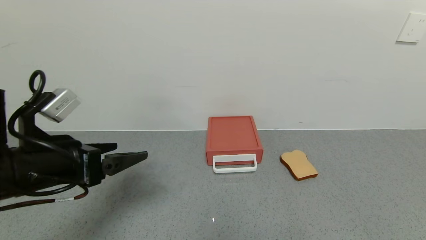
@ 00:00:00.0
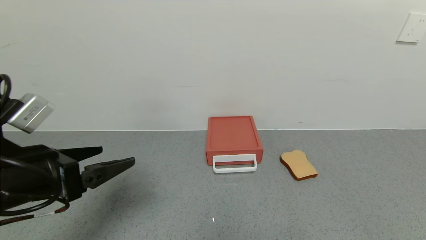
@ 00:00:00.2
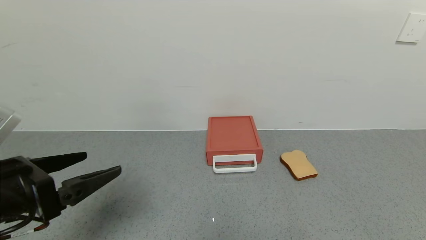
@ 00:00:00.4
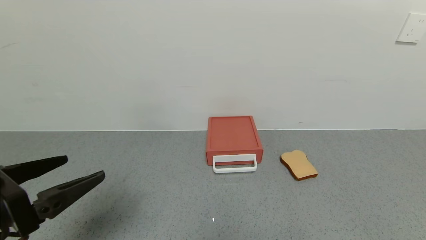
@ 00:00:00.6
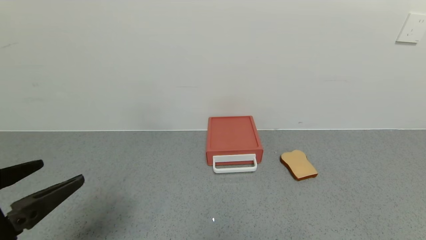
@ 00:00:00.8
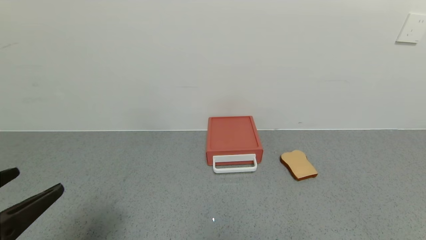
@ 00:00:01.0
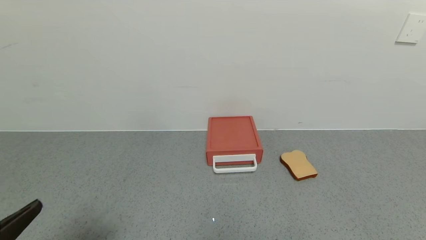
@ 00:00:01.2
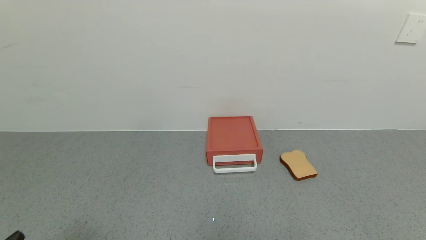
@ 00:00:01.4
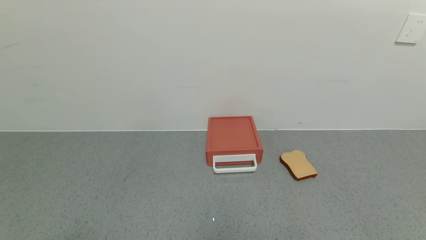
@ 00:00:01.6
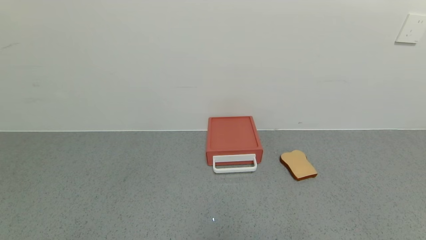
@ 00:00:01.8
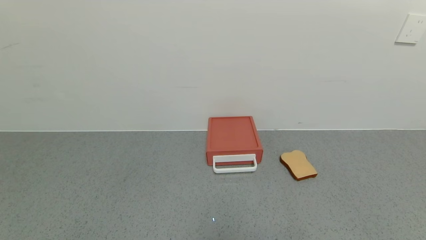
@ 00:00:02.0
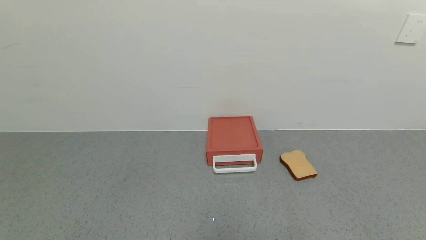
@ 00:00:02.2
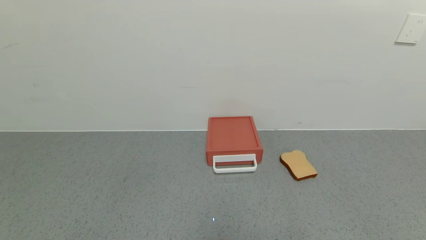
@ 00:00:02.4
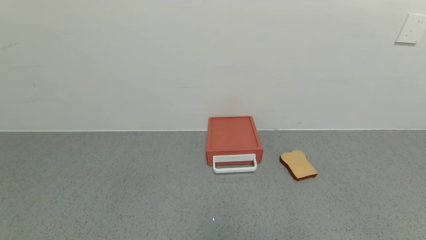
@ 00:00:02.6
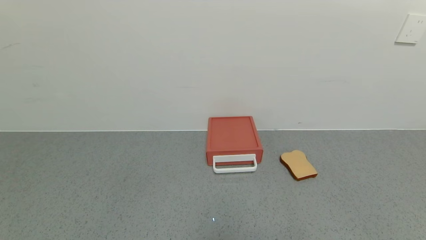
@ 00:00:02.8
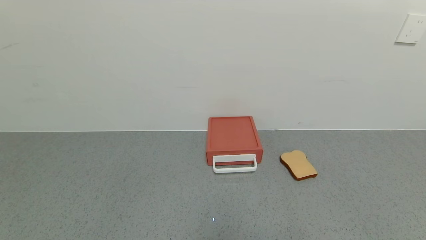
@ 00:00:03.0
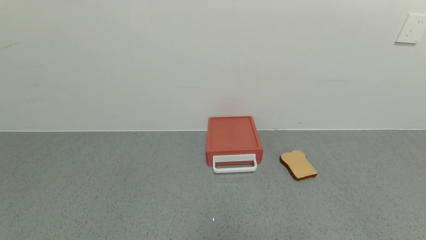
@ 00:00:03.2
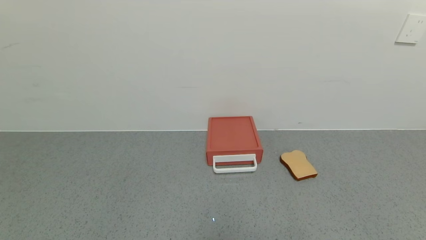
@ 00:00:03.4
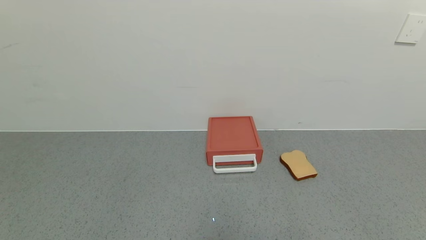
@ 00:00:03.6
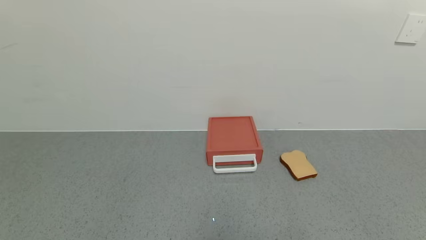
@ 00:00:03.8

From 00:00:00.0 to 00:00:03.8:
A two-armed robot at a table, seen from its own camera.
Task of the whole recording: use the gripper to open the drawer and close the red drawer.
From 00:00:00.0 to 00:00:01.2: The left gripper travels backward by about 15 cm.
From 00:00:01.2 to 00:00:02.6: The left gripper travels downward and backward by some 10 cm.
